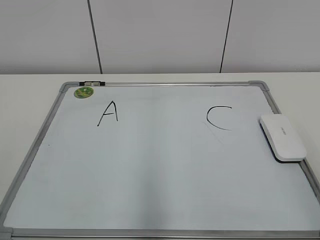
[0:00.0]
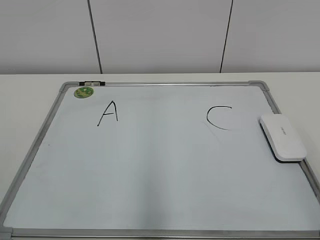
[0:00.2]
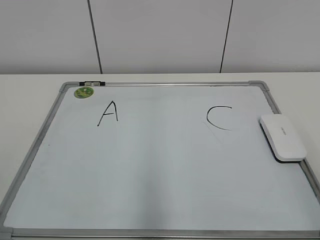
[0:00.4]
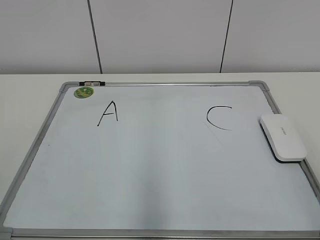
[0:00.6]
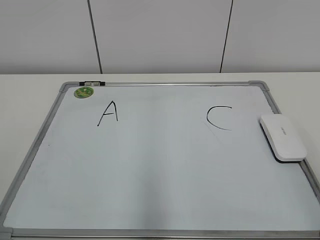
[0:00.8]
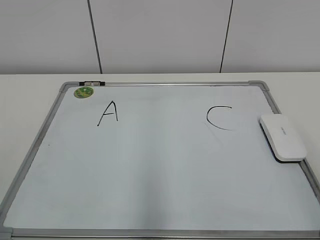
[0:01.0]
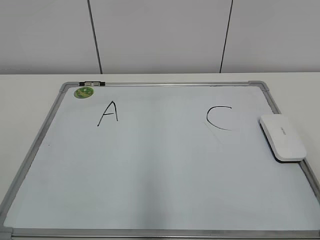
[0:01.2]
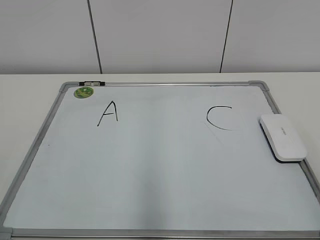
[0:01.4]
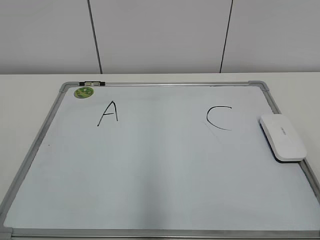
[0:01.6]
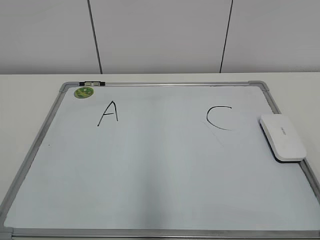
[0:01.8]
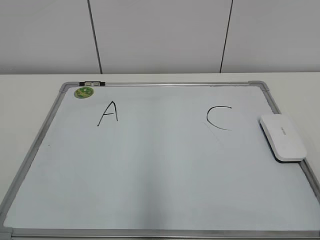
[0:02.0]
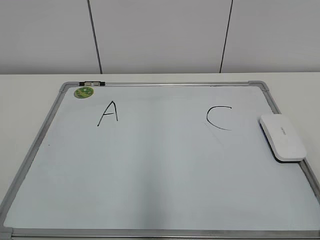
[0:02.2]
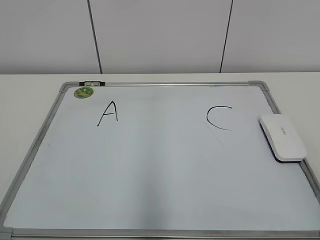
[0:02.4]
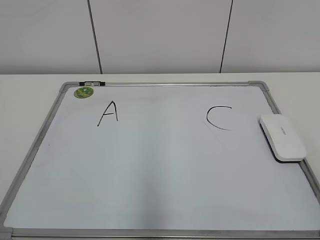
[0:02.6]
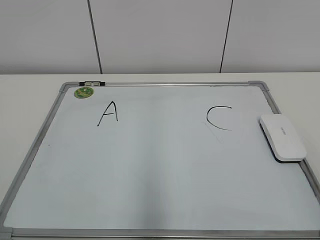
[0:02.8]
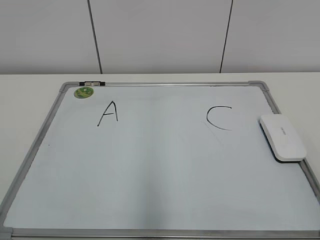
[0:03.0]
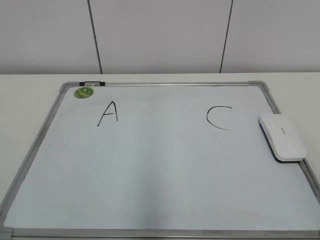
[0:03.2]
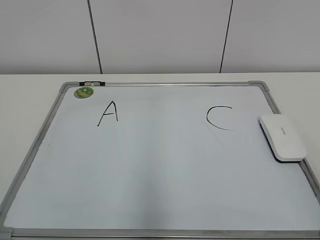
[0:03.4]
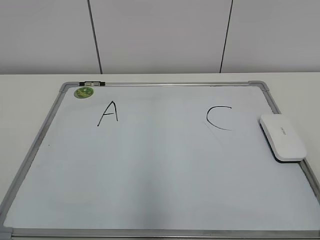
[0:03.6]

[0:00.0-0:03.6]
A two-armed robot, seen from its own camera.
Task of the whole recording: pick up the eraser on the blackboard and erase the letter "B".
0:01.8 to 0:03.6: Both grippers stay put.

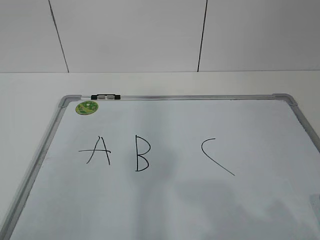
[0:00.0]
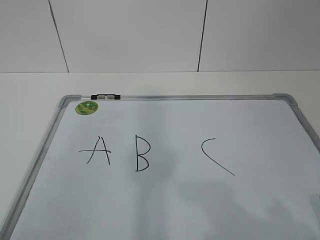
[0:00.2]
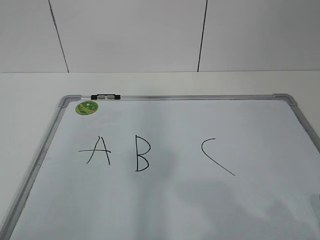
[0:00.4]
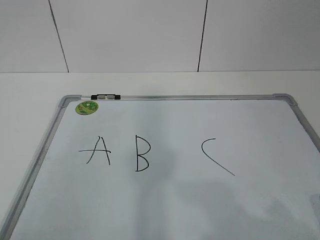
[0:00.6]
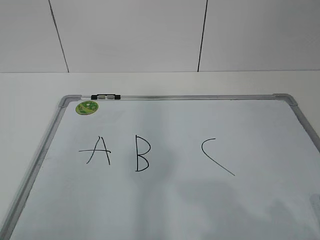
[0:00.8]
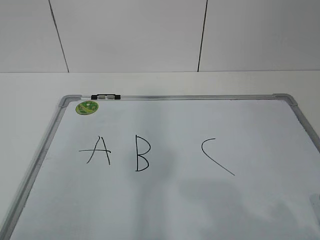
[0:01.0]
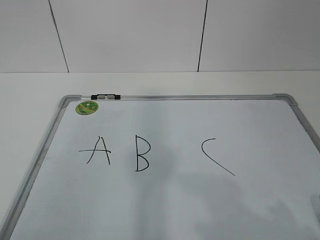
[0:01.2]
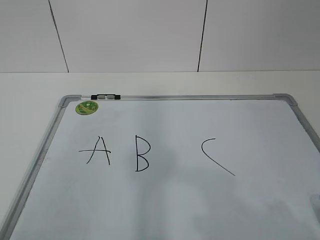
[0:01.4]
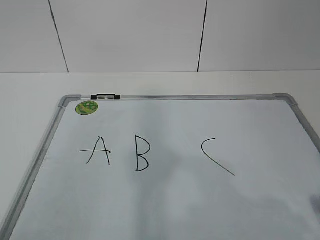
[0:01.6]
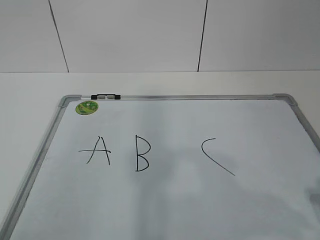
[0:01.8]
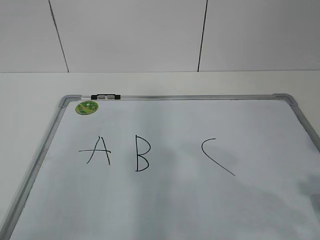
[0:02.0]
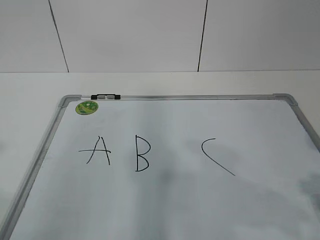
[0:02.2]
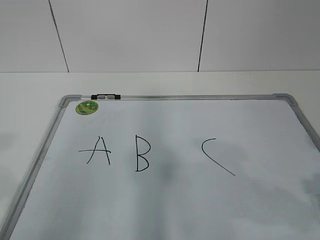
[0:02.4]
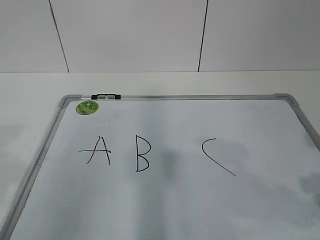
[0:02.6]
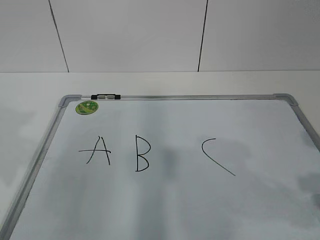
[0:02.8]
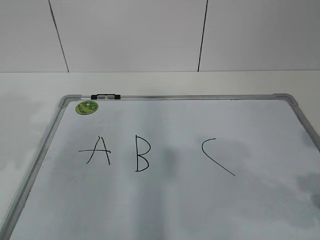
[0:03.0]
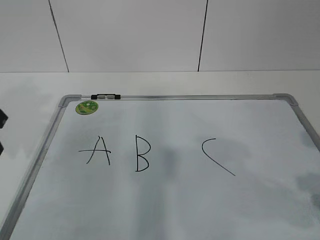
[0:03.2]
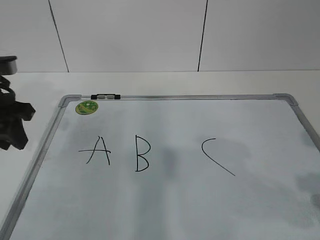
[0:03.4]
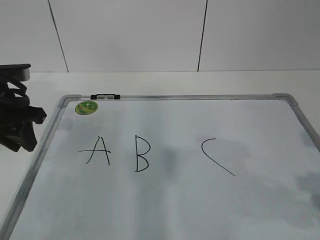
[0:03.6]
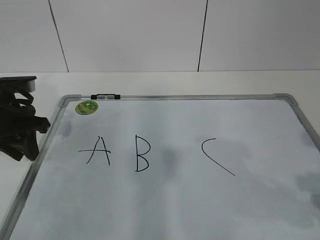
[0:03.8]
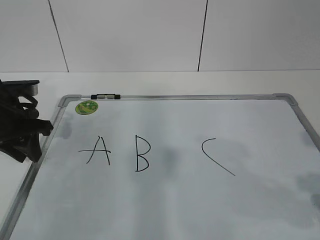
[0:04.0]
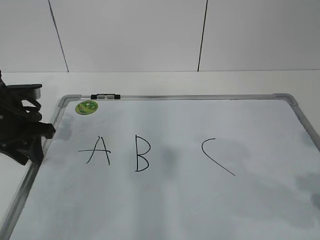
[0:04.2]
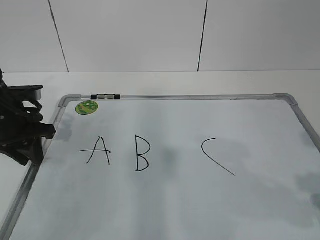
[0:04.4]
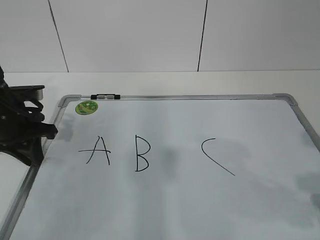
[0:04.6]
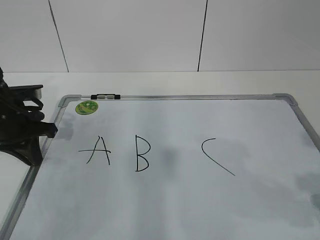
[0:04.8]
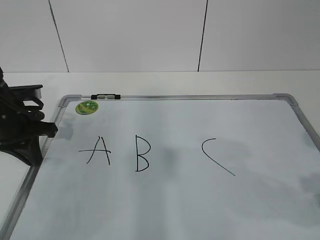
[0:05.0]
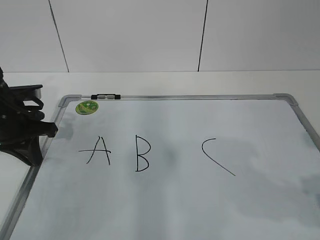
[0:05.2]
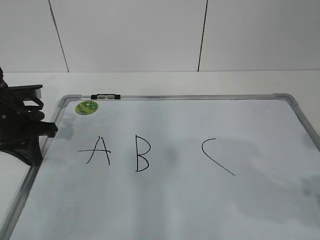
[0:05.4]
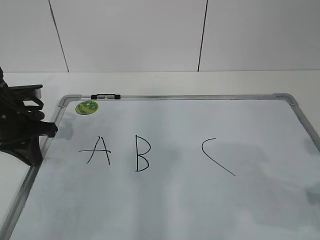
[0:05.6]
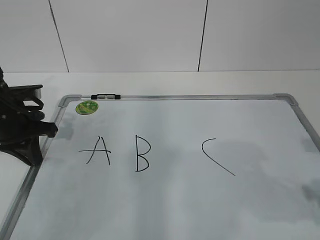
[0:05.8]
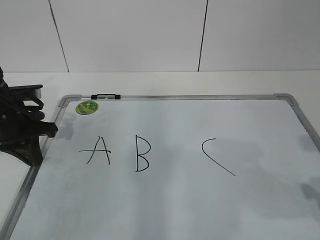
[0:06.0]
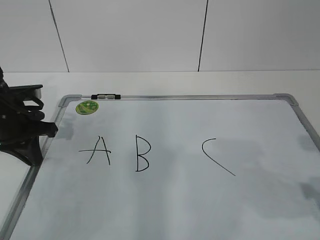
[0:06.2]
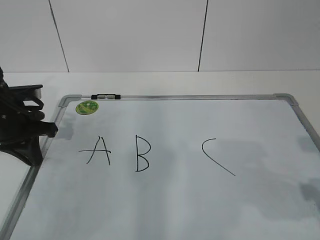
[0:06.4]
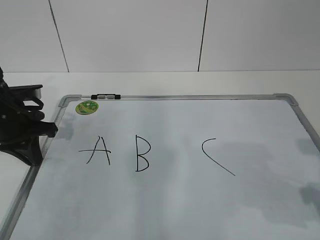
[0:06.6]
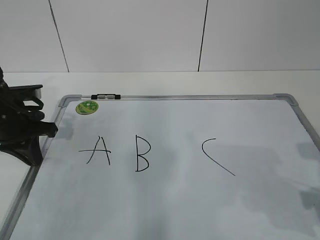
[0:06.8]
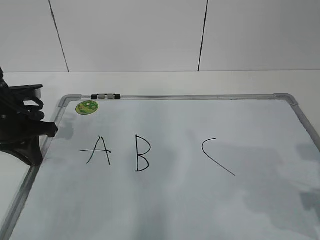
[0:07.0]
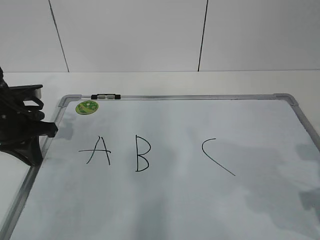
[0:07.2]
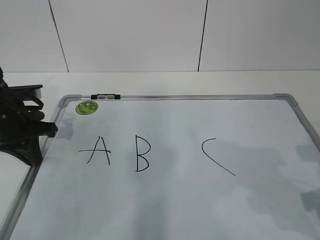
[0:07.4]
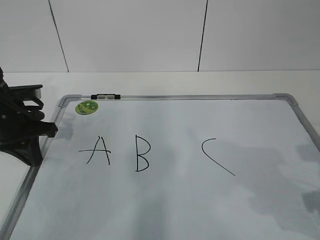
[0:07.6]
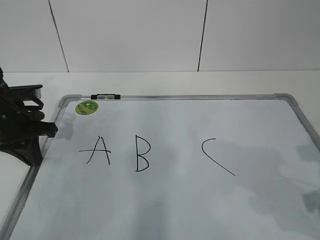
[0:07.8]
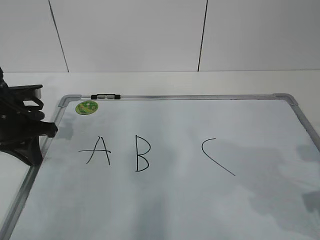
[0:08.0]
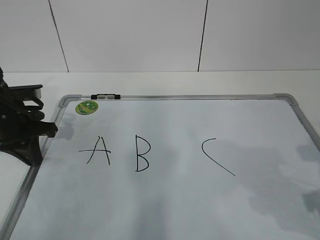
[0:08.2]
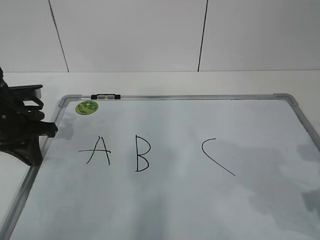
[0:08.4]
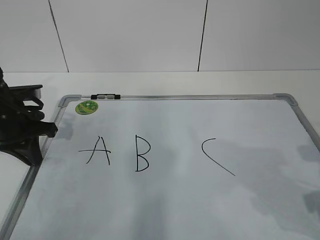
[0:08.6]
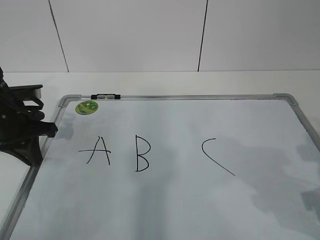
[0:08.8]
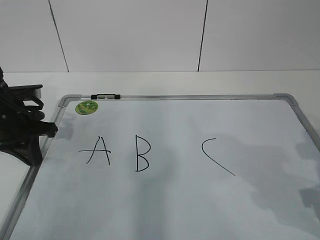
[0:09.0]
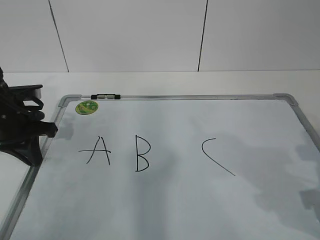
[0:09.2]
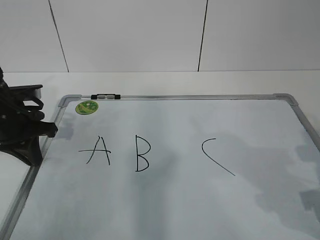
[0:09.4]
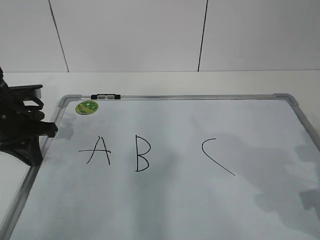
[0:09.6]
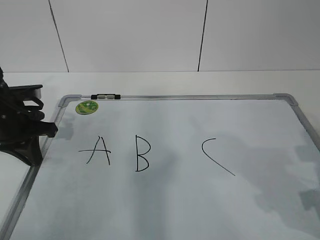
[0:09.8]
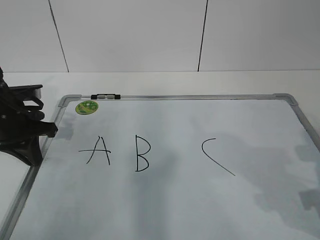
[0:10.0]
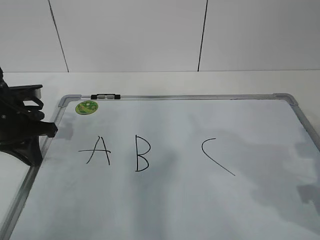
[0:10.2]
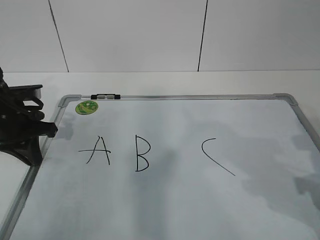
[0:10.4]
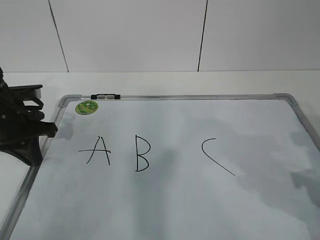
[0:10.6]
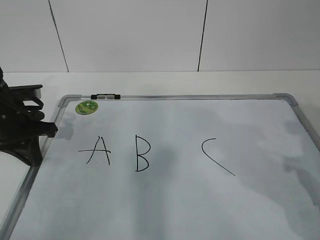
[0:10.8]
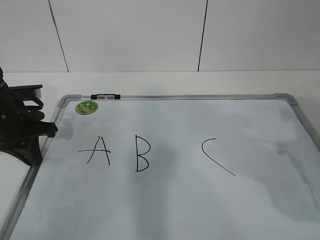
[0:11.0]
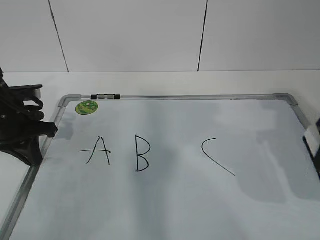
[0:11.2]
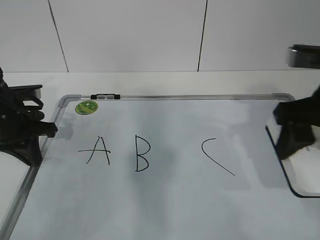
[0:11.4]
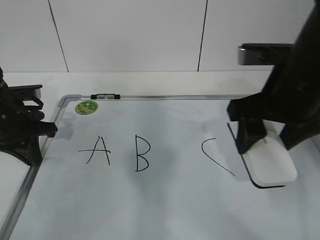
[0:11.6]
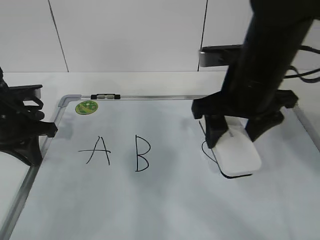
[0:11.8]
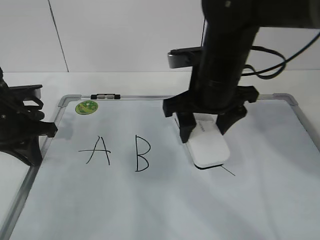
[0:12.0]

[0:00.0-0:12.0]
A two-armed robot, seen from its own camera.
Task of the whole recording: pick up the eraser on the blackboard and erase the letter "B".
Step, 0:00.0 to 0:03.8: Hold the drawing board steady with your left hand.
Step, 0:04.0 to 0:08.0: Grab the eraser with your right hand.
0:03.0 to 0:04.4: The left gripper shifts approximately 15 cm forward and downward.
0:04.4 to 0:06.0: The left gripper closes up.
0:10.4 to 0:12.0: The right gripper moves to the left and forward, approximately 25 cm.

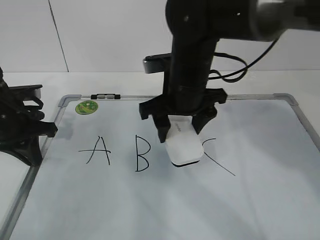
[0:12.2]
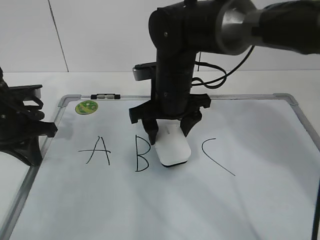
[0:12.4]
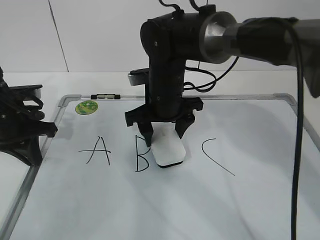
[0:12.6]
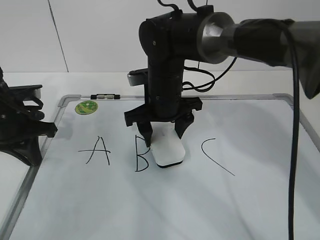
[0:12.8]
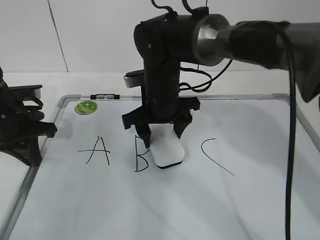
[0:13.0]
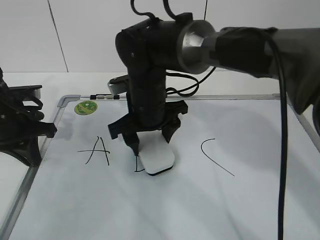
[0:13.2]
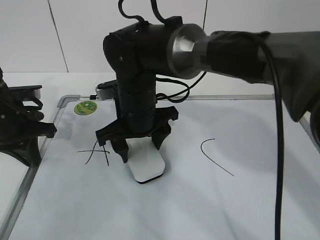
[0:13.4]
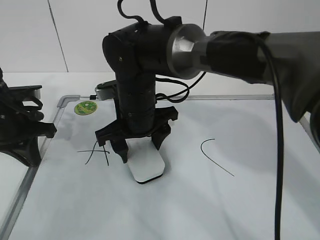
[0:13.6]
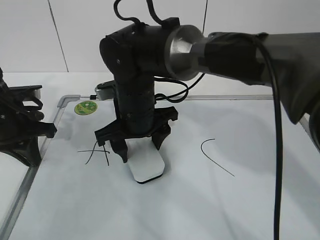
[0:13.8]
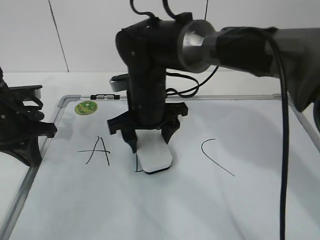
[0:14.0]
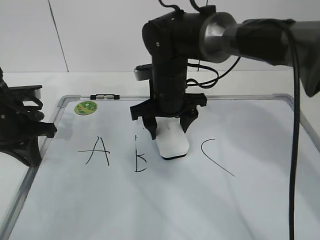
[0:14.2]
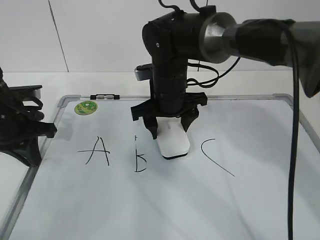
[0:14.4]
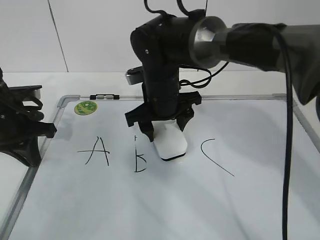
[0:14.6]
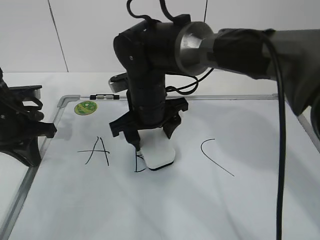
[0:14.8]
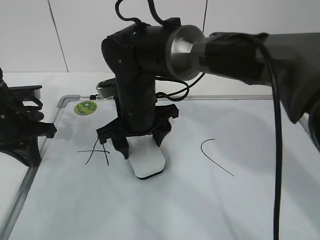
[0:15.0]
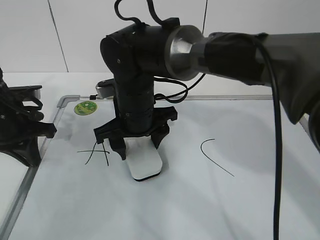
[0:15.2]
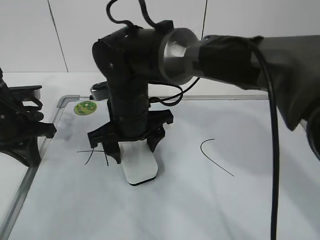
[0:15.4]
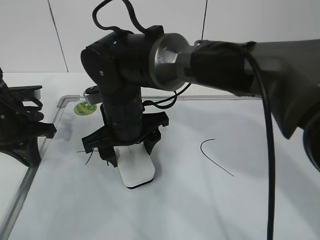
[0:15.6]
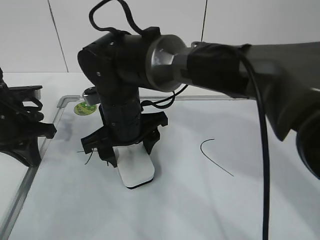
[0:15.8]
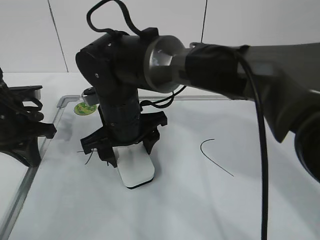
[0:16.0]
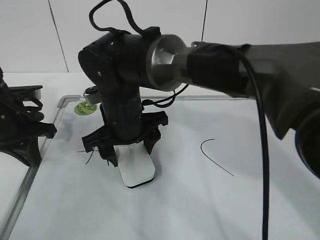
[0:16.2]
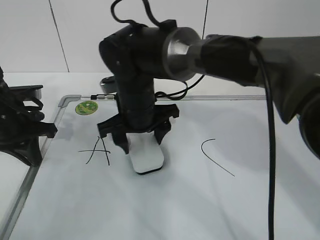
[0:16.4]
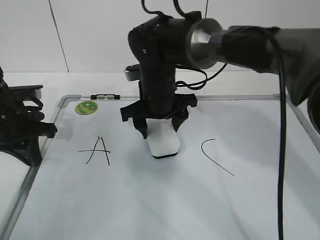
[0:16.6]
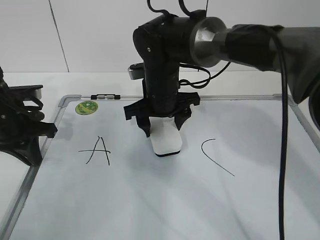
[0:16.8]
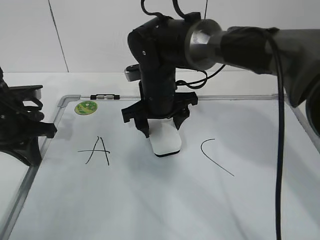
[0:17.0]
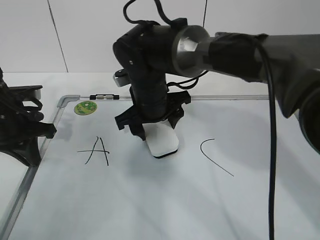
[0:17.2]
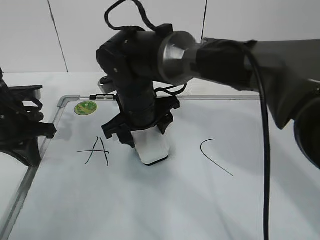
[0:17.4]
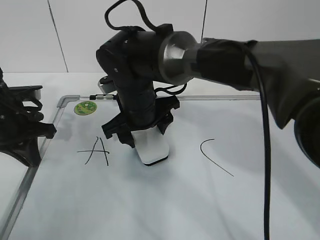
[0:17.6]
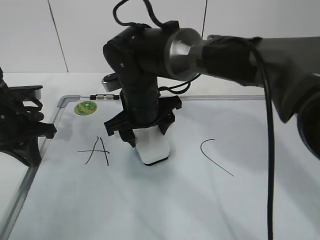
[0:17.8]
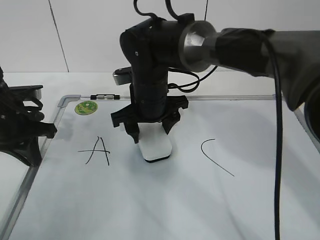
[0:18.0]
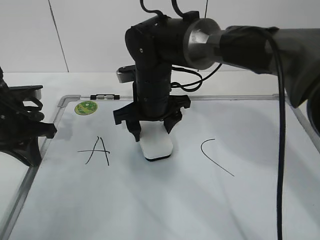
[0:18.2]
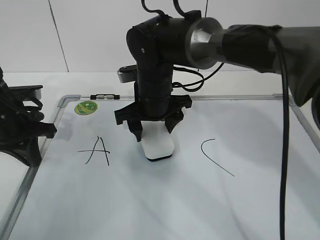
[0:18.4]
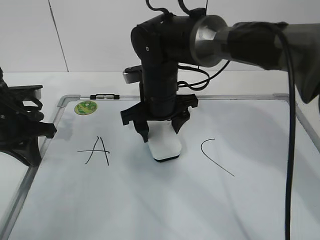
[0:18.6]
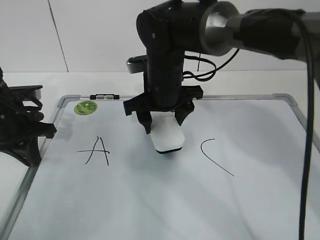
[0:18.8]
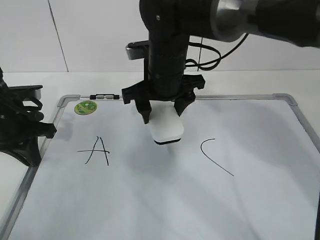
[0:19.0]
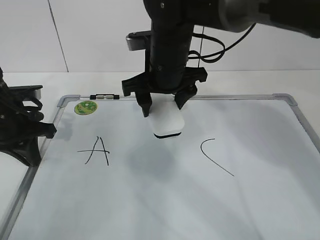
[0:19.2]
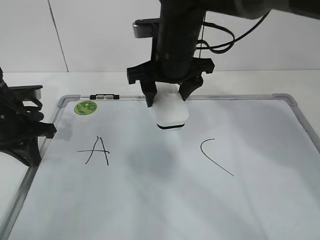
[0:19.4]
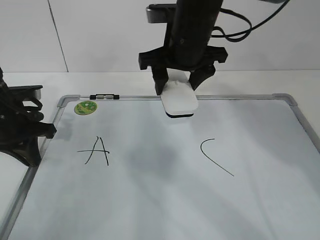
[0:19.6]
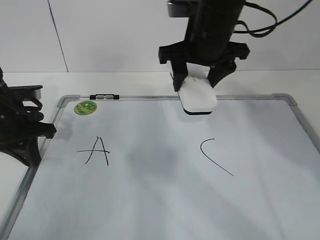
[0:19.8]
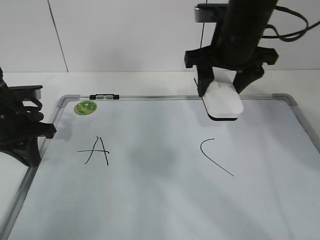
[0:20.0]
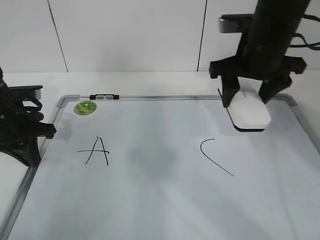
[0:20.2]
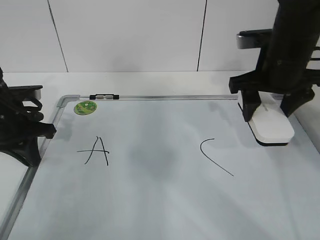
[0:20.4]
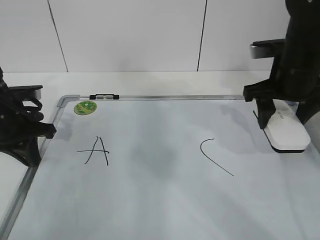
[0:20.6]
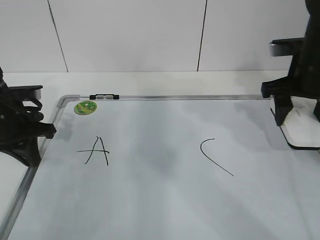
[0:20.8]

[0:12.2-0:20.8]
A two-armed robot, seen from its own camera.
Task of the whole recording: pick up the eraser on the blackboard and erase the letter "B".
Step, 0:12.2 to 0:15.4: Erase the letter B with your right hand.
0:12.2 to 0:13.6: The right gripper moves to the left and downward, roughly 10 cm.
0:15.0 to 0:16.6: The right gripper shifts by about 5 cm.
0:16.6 to 0:18.0: The grippers stay close to where they were, moving slightly.
0:18.0 to 0:19.4: The right gripper moves upward, approximately 10 cm.
0:19.4 to 0:20.8: The right gripper shifts some 20 cm to the right.
